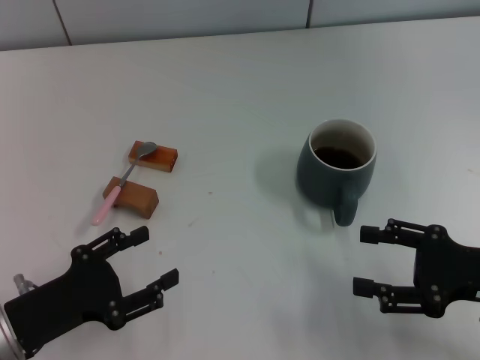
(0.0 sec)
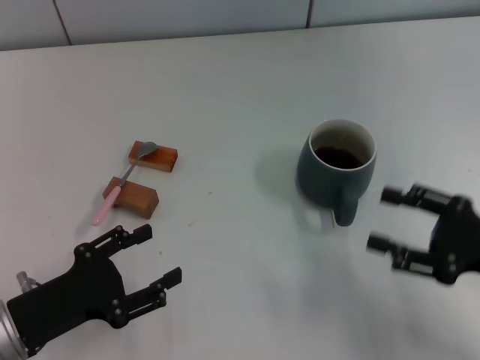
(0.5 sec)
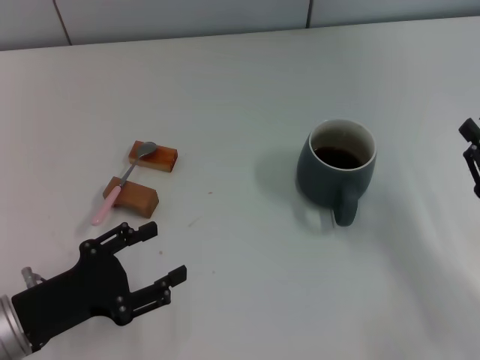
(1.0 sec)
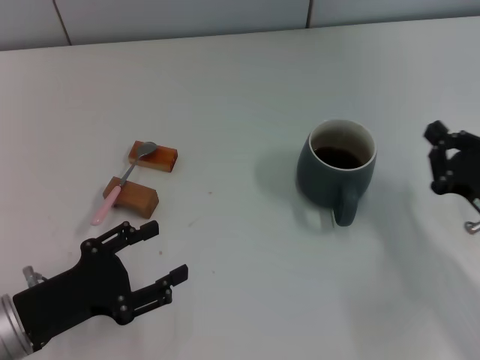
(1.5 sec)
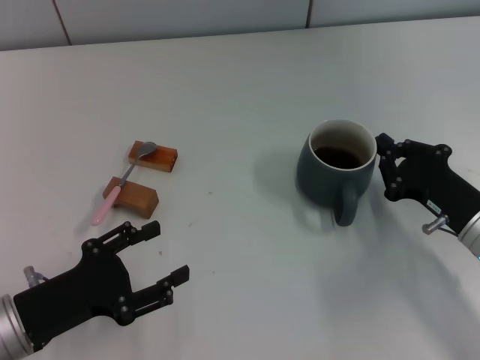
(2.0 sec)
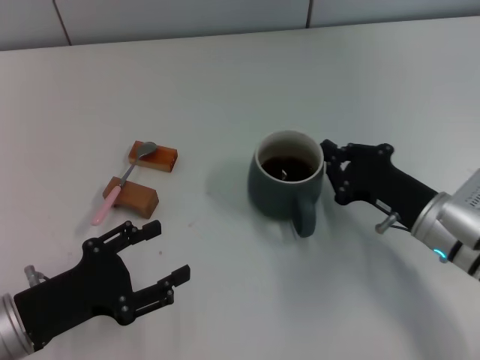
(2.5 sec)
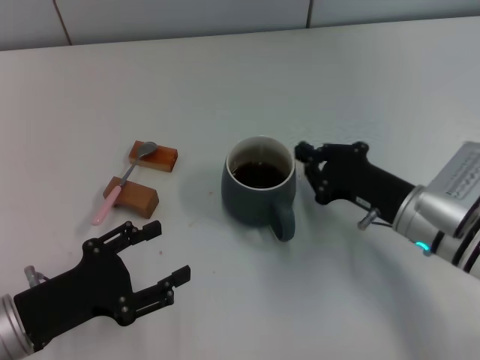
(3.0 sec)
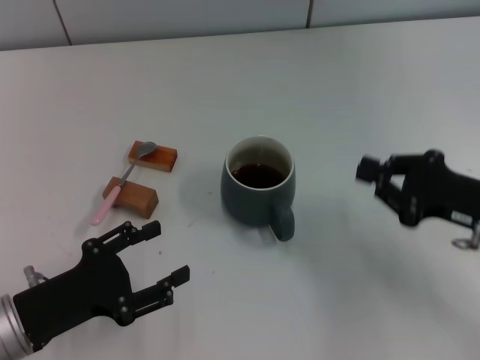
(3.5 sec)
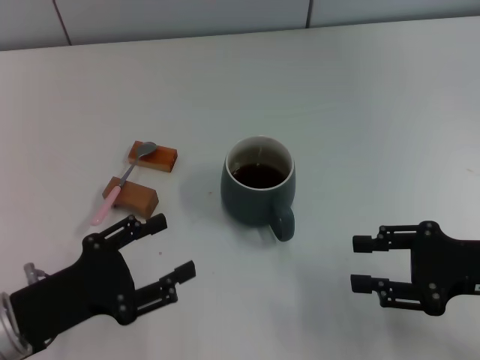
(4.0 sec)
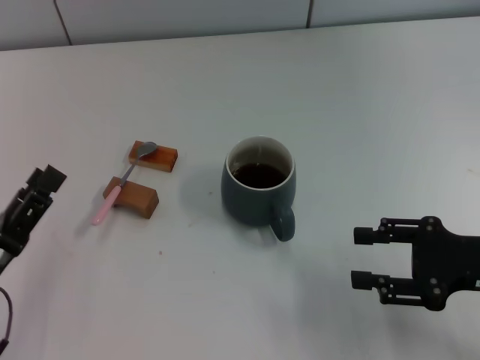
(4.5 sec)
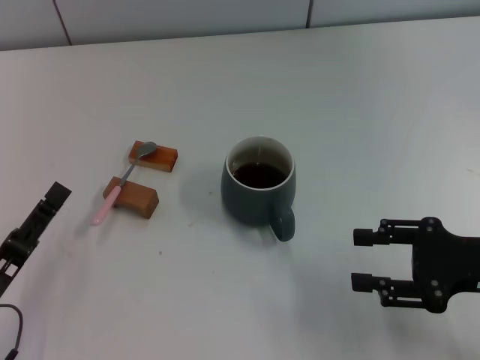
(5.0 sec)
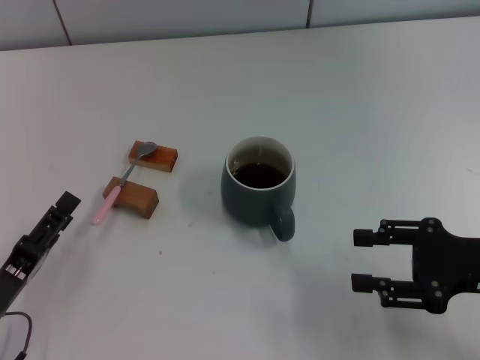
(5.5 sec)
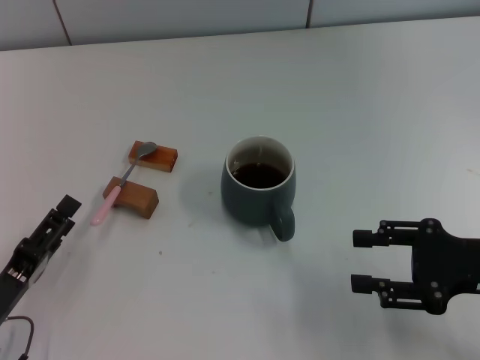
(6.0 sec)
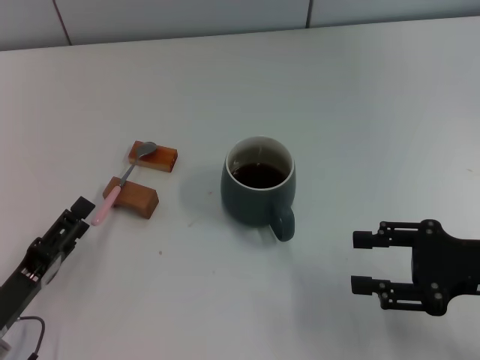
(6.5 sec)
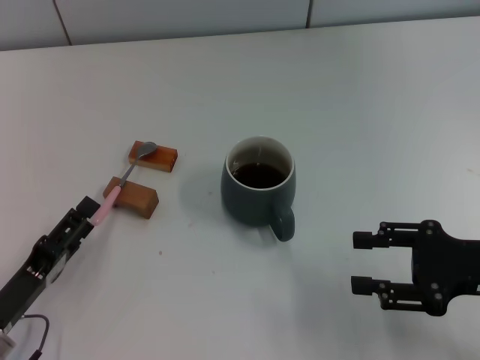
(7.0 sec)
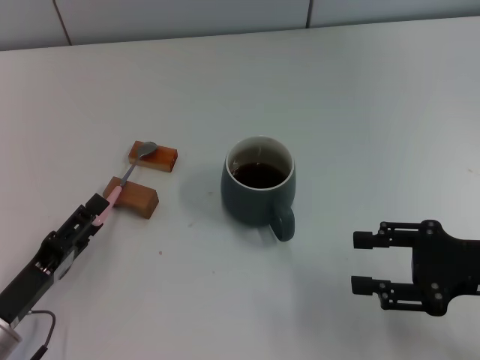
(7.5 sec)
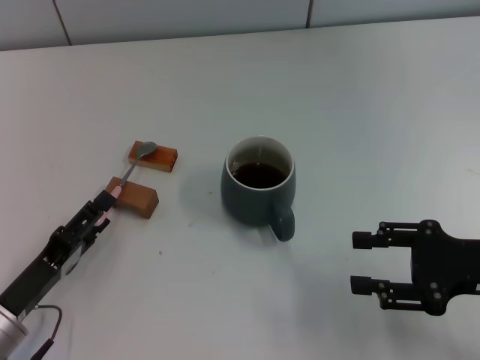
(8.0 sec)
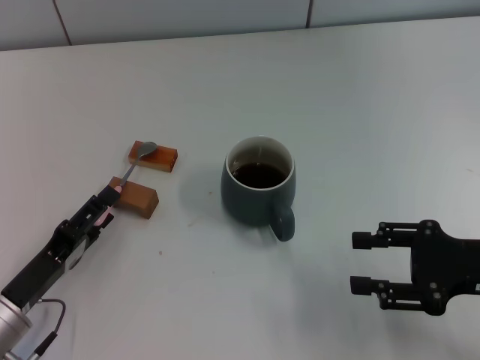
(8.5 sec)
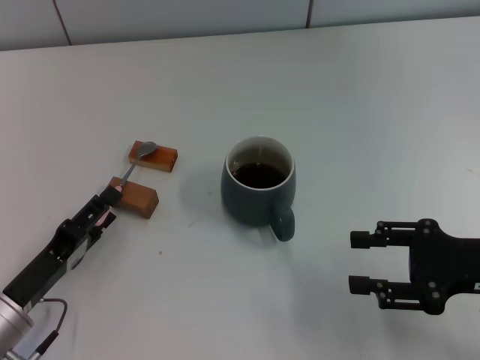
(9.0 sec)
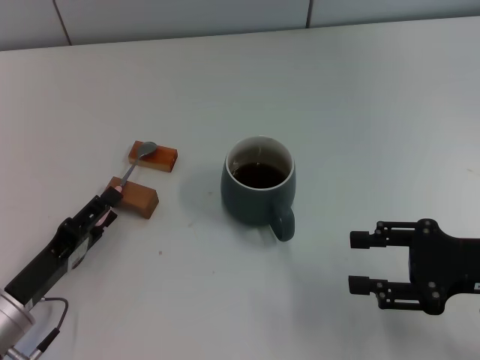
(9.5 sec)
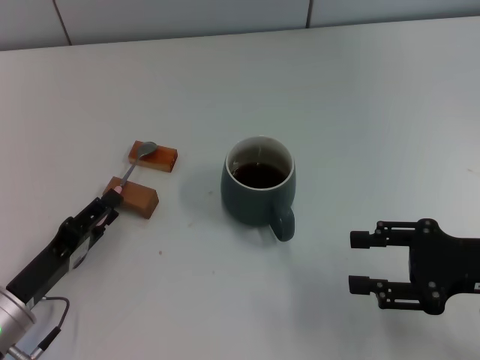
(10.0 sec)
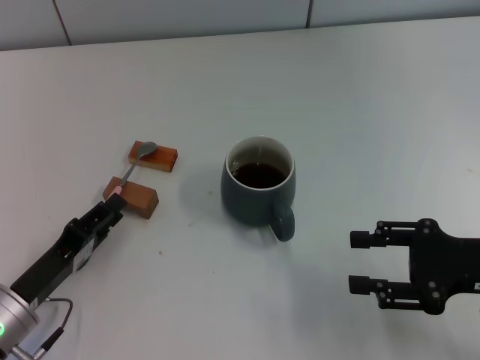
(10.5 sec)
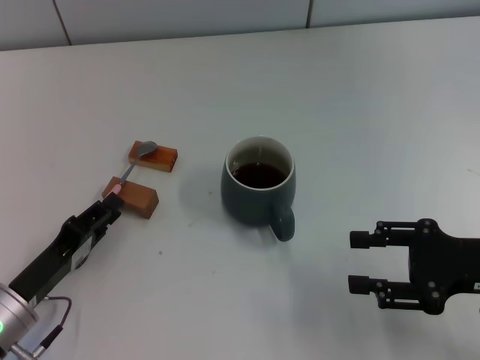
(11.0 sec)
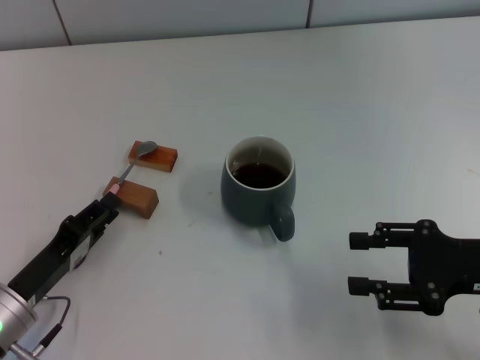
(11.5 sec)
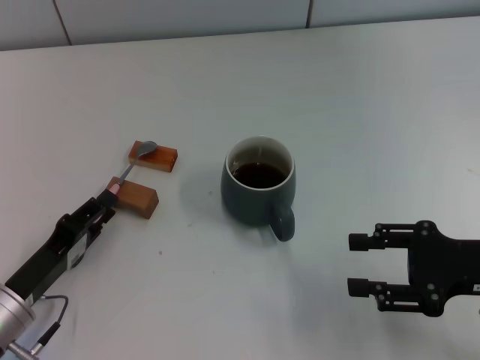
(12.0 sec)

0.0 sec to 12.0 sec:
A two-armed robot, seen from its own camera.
Task of the whole recording: Move the grey cup to the center, lift the pink spoon, stir it three times in the cup, and put the spoon into the cup.
Step, 0.0 sec to 3.0 sec: Move the cup with coffee to the center of view with the right gripper.
0.0 sec to 2.0 sec: The right gripper travels downward by approximately 5 cm, and closes up.
2.0 sec to 4.0 sec: The right gripper shifts some 5 cm upward, moves about 5 cm to the left and comes back, and opens.
4.0 sec to 6.0 sec: The left gripper changes place by some 5 cm.
6.0 sec to 8.0 sec: The grippers move only a little.
8.0 sec to 10.0 sec: The two grippers keep their place.
10.0 sec to 12.0 sec: Neither gripper changes place.

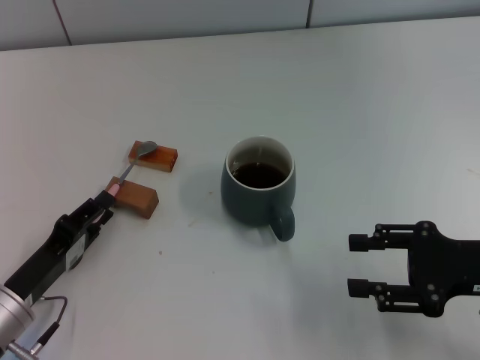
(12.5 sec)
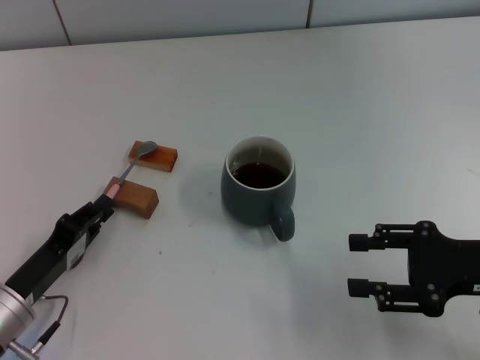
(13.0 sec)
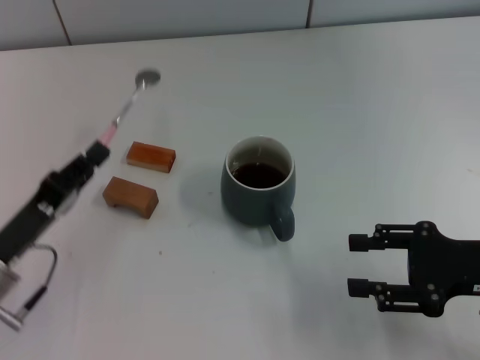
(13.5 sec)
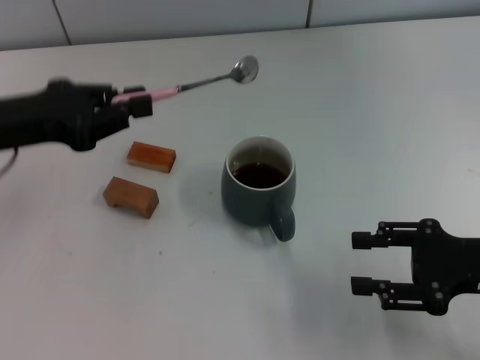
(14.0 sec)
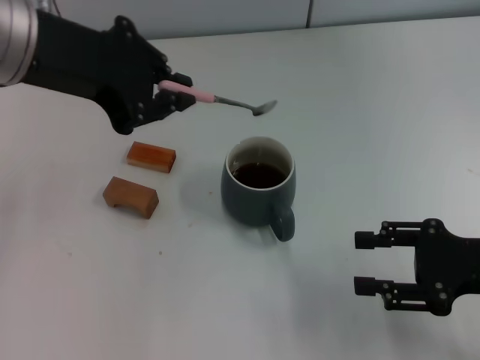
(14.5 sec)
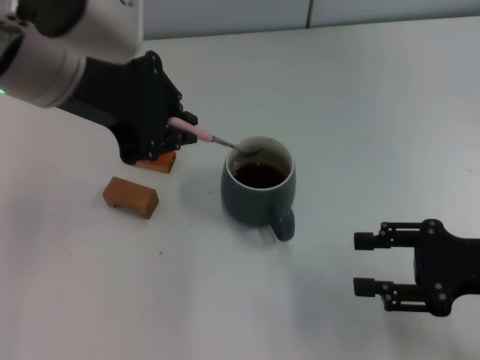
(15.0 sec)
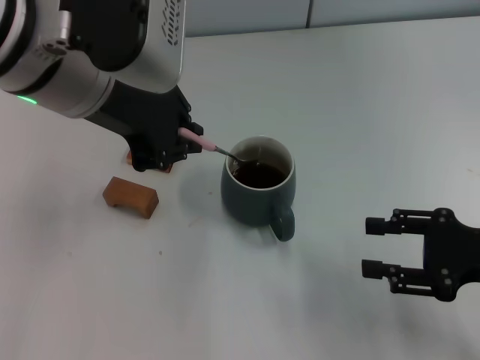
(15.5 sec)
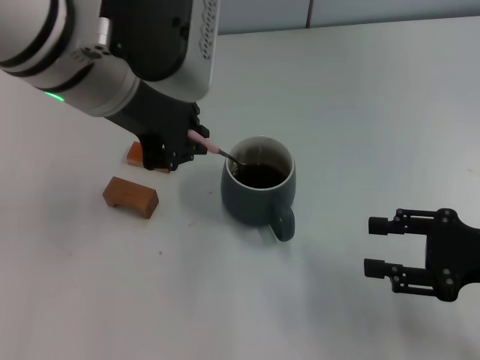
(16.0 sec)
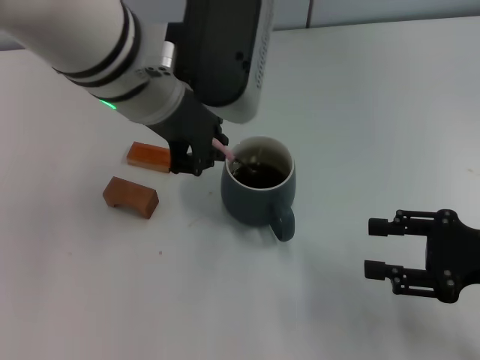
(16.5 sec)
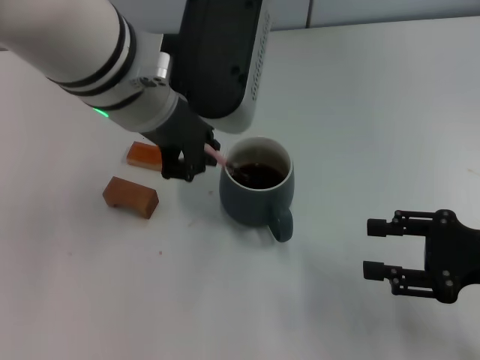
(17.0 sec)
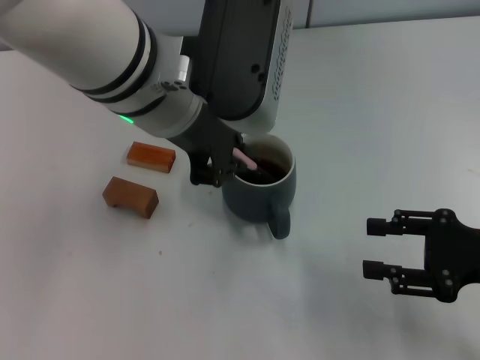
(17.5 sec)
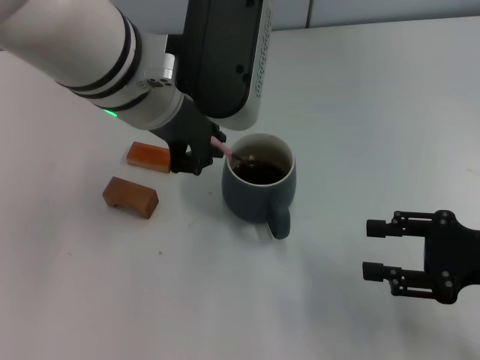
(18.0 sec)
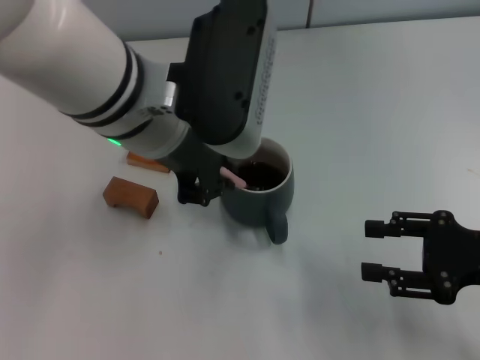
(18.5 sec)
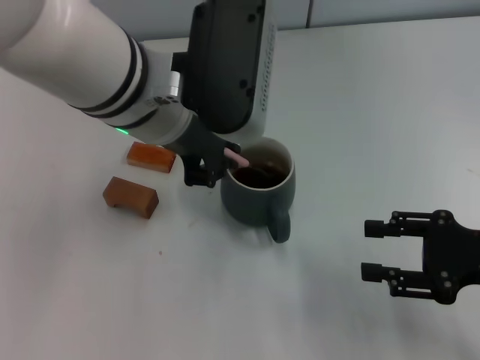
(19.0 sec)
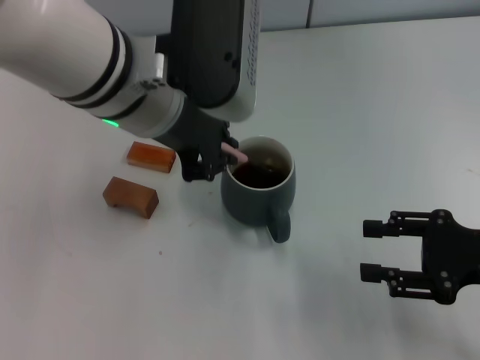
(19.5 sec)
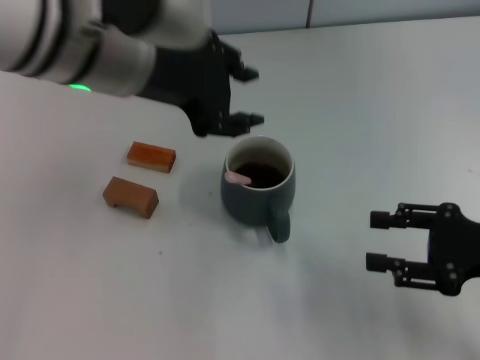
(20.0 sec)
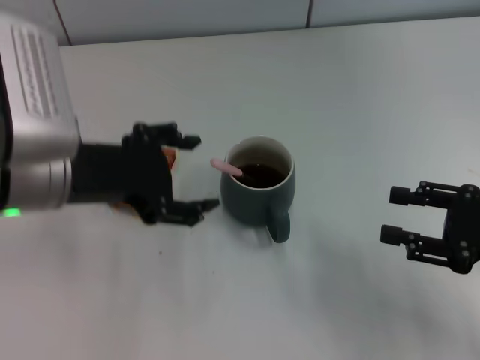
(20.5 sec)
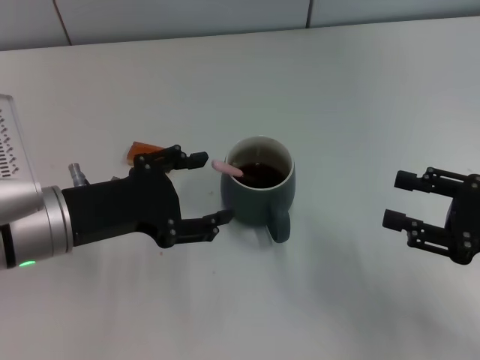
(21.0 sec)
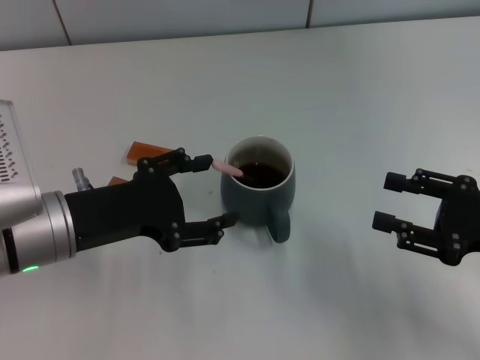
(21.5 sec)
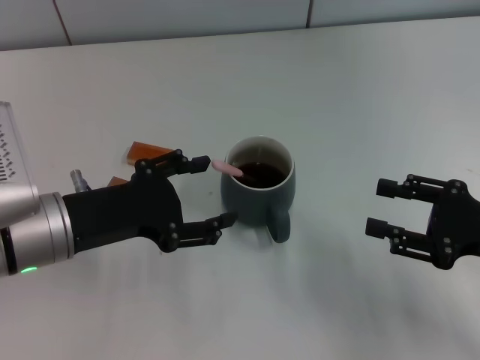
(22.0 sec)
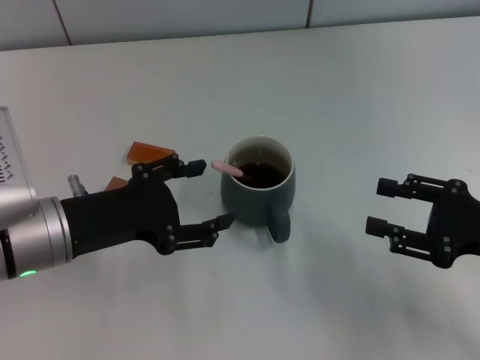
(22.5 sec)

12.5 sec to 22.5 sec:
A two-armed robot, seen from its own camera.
Task of the whole recording: Move the grey cup to the center, lift the pink spoon, stir it three times in the cup, and put the spoon into the cup.
Step, 14.0 sec to 20.0 sec: Stir the coffee in the cup with the left gripper.
12.5 sec to 14.5 sec: The left gripper is displaced upward and forward by some 30 cm, and closes up.
14.5 sec to 16.5 sec: The left gripper is displaced to the right by approximately 10 cm.
16.5 sec to 18.5 sec: There are only small adjustments of the grippers.
18.5 sec to 20.5 sec: The left gripper shifts about 10 cm to the left, and opens its fingers.
20.5 sec to 22.5 sec: The left gripper heads downward, covering some 5 cm.

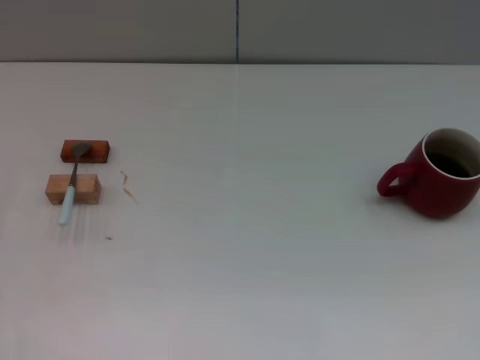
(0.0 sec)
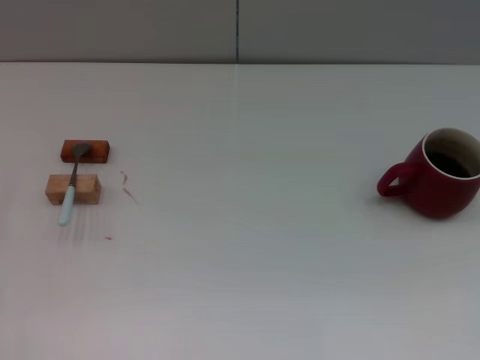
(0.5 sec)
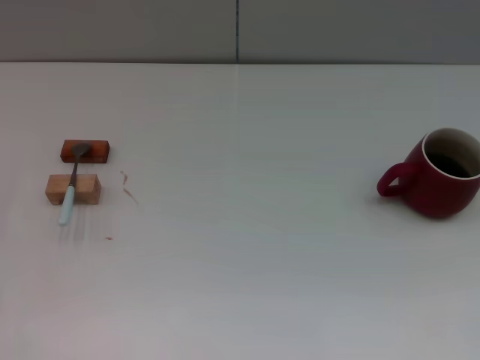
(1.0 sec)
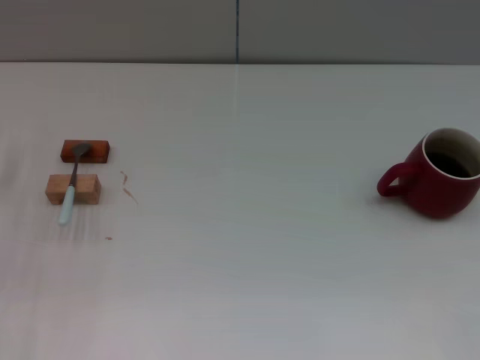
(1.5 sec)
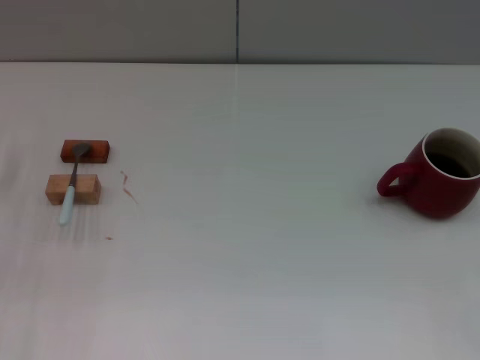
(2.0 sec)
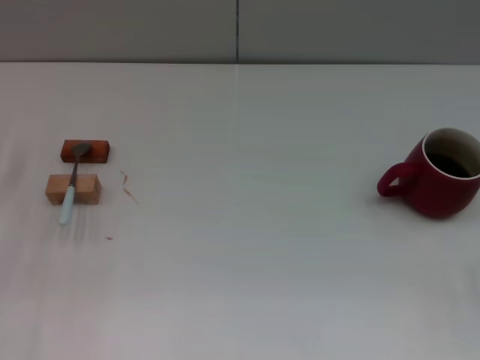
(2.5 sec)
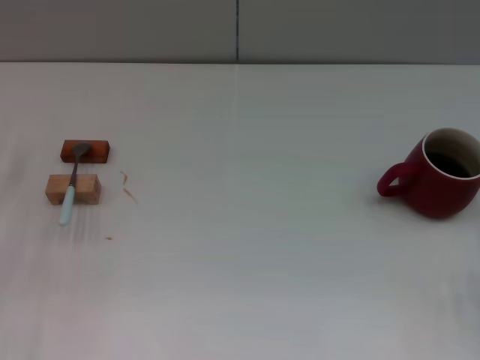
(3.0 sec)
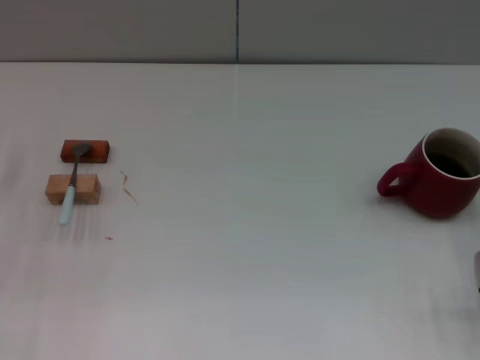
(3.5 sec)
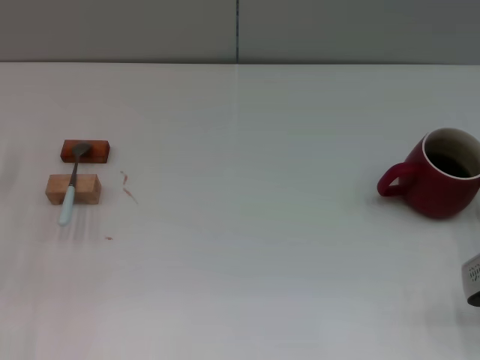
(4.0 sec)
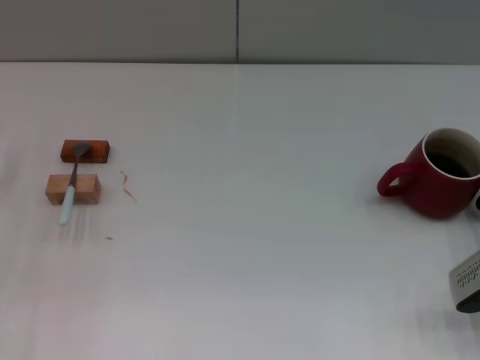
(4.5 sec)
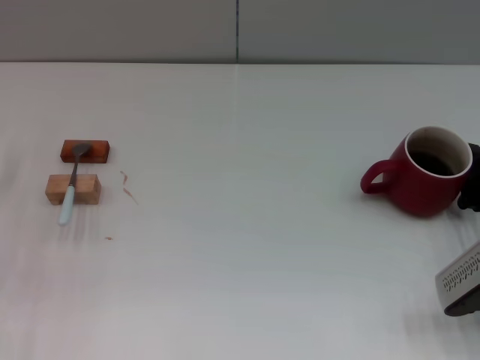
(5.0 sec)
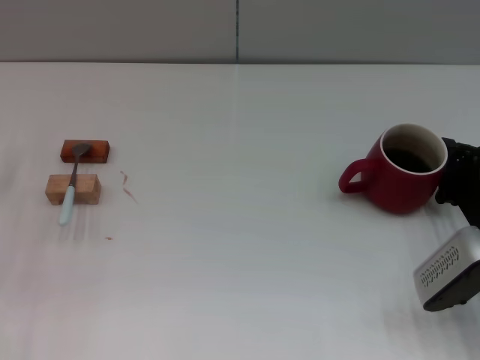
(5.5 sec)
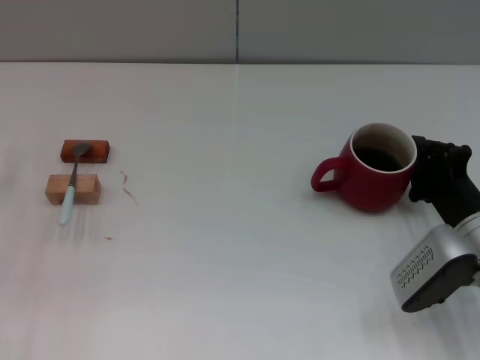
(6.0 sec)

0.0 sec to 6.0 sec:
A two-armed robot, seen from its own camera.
Task of the whole recording: Move the red cup to the center, lift the blue spoon, stir it three times in the cup, and put the spoon into the cup.
2.0 sec to 4.0 sec: The right gripper travels to the left by about 5 cm.
4.0 sec to 6.0 sec: The right gripper is displaced to the left by roughly 5 cm.
